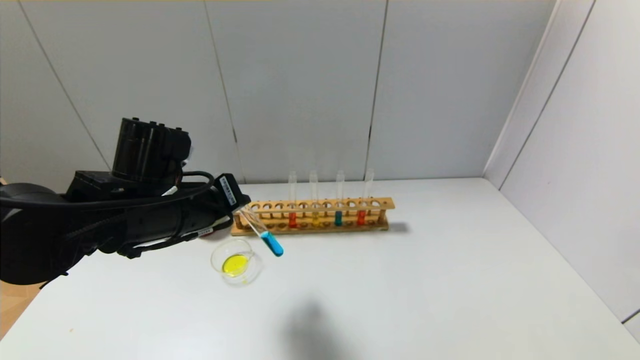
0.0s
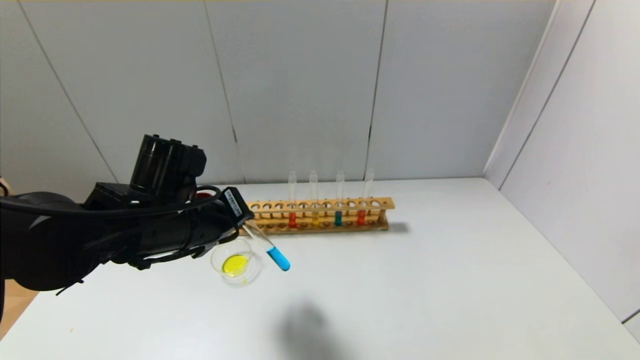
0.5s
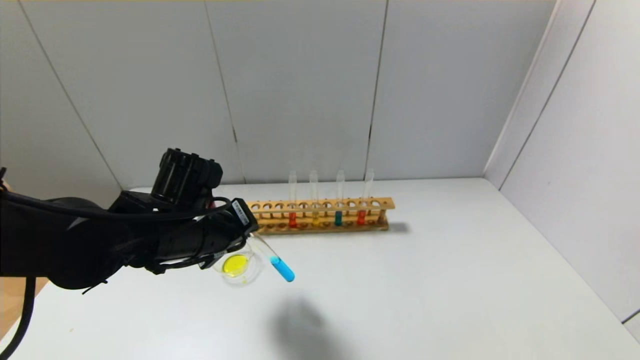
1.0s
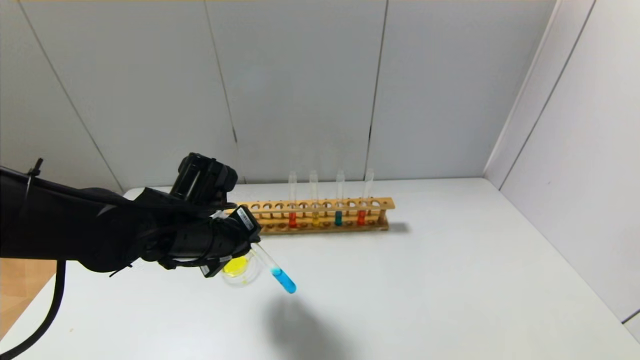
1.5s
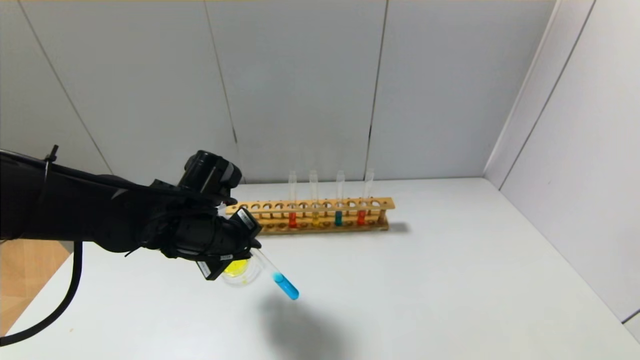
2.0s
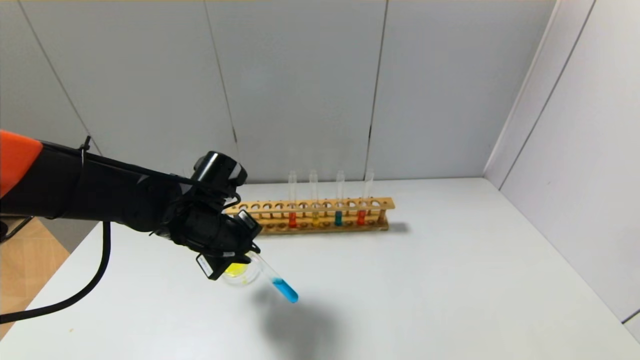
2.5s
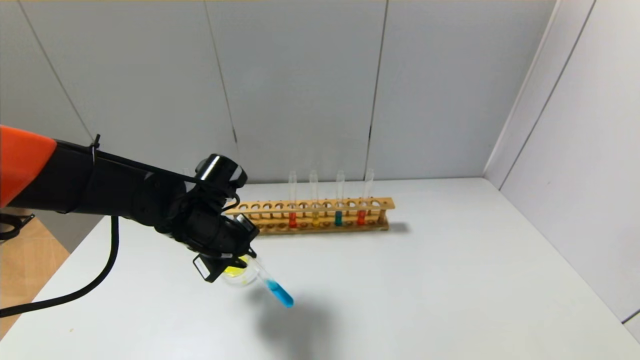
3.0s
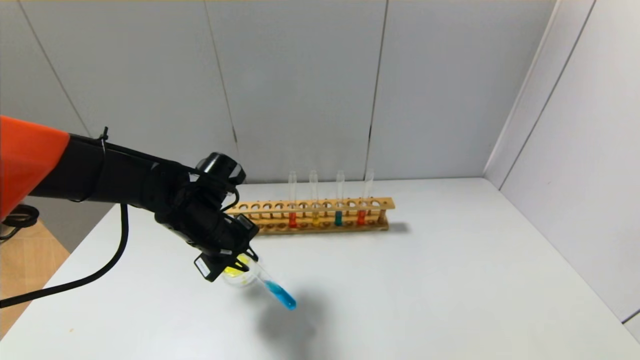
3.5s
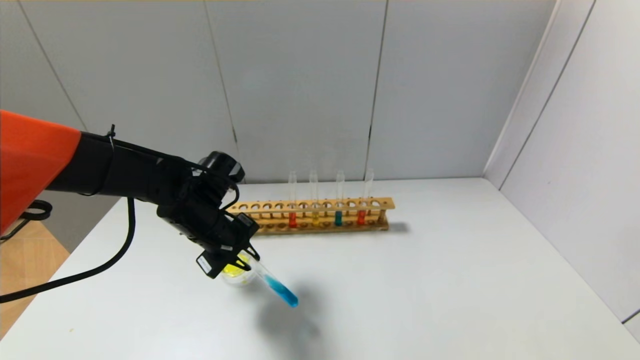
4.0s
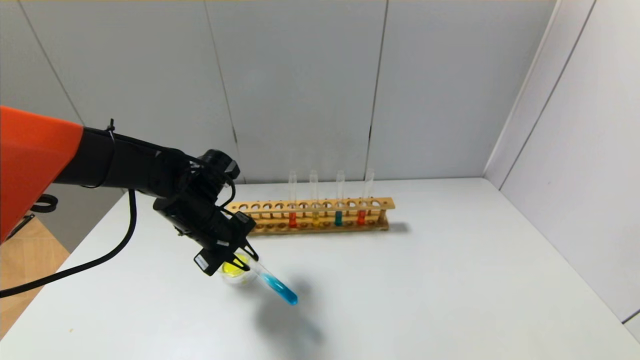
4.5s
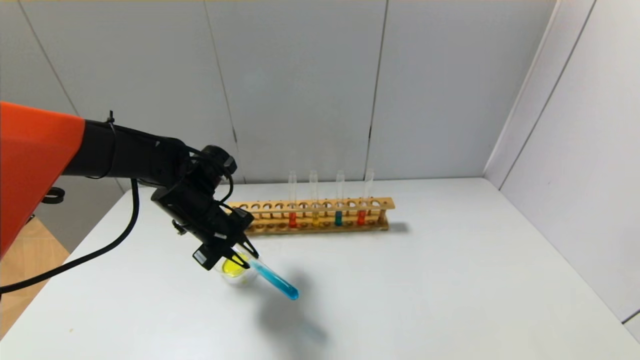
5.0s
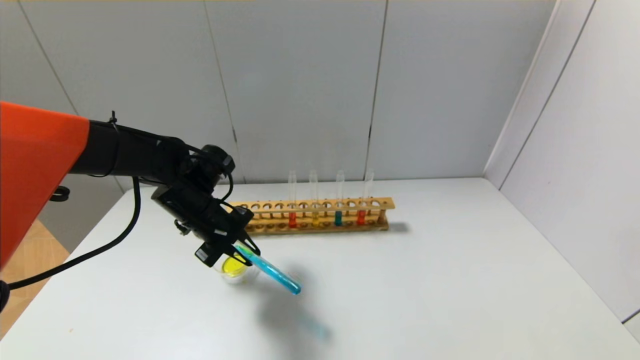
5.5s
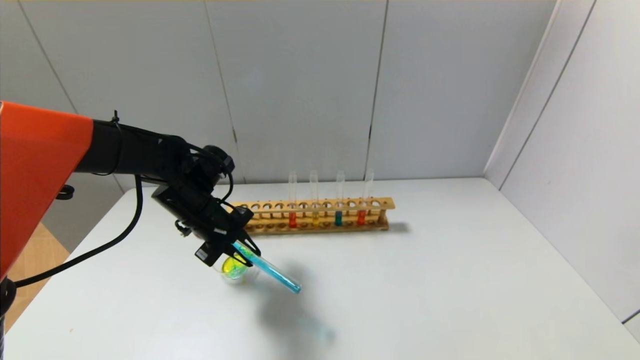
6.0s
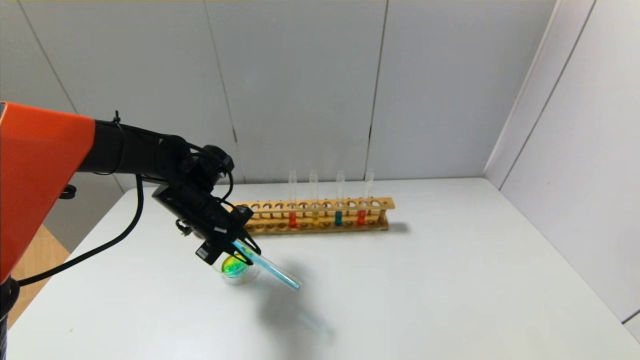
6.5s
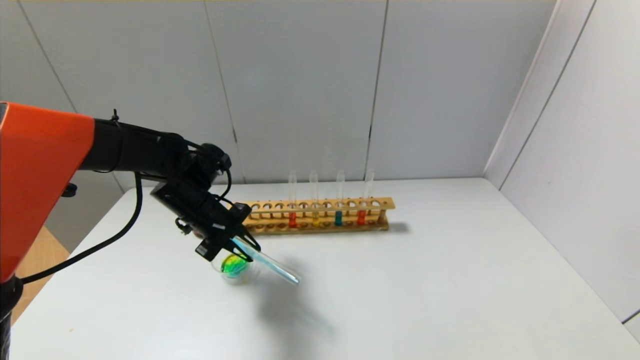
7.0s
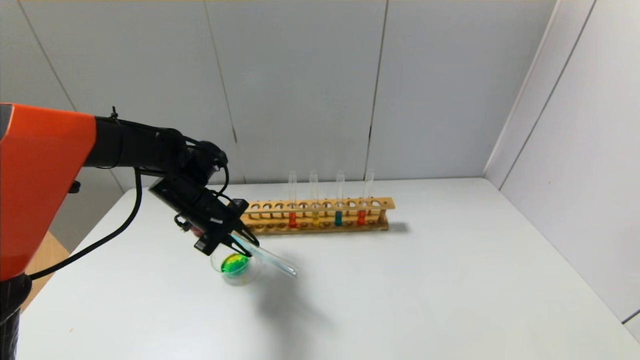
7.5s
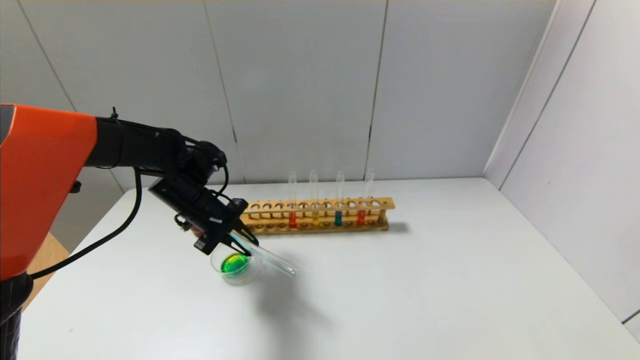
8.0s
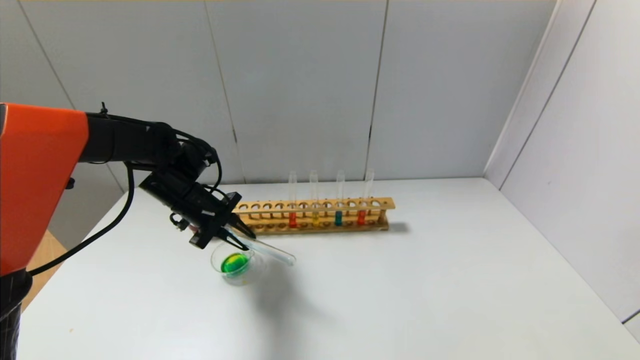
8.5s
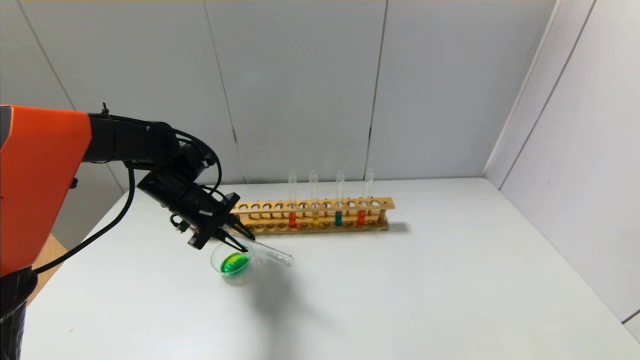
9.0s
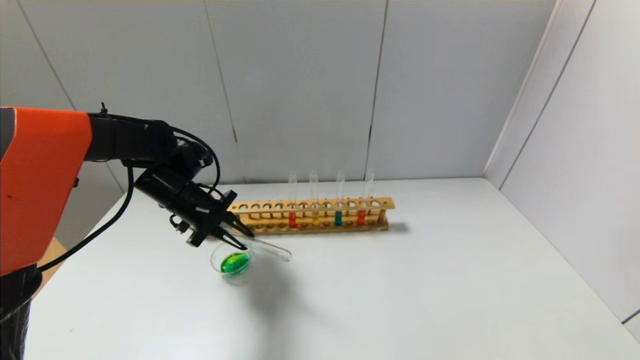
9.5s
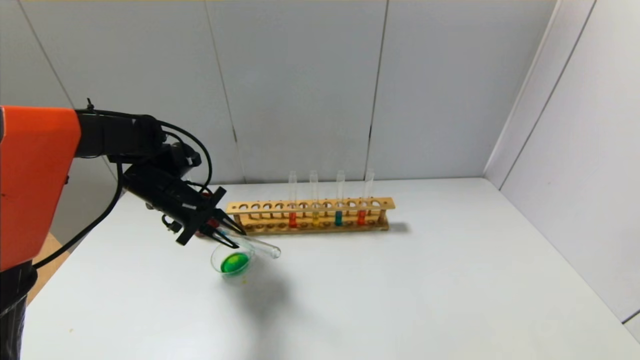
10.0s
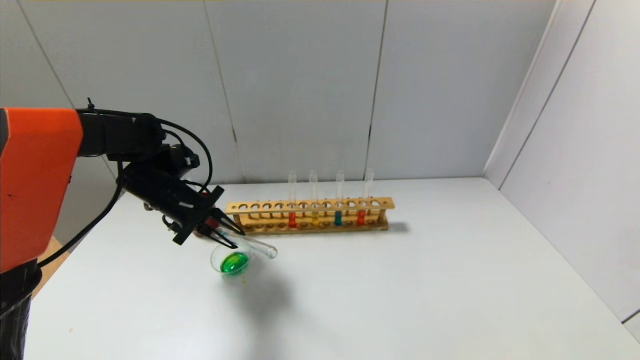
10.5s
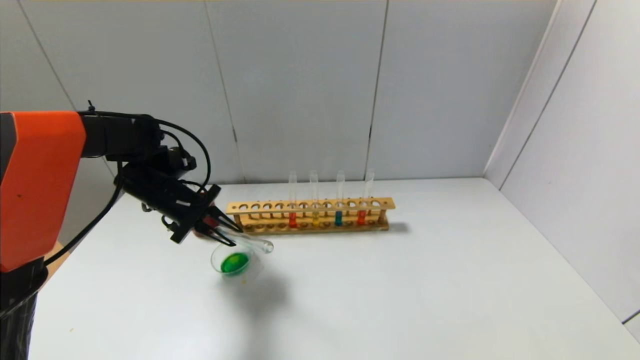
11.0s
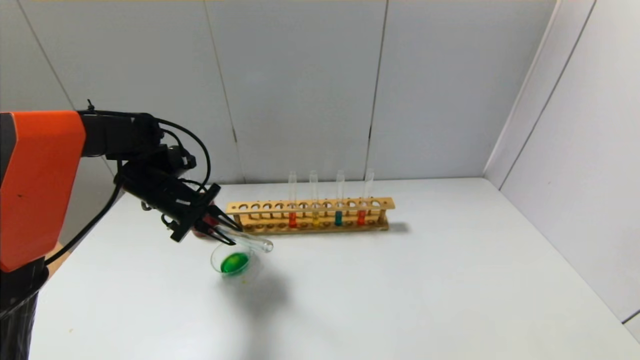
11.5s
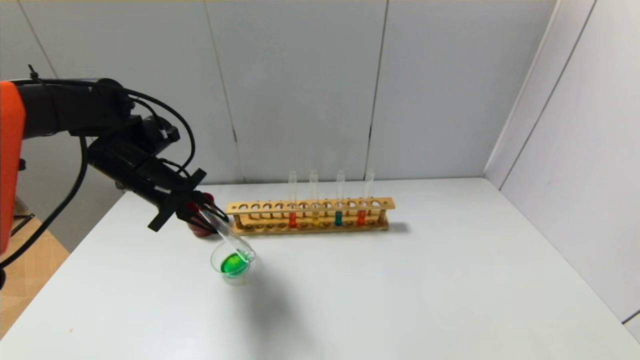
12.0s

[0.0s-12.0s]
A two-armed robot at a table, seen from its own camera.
Step, 0.0s to 11.0s: Pour the blue reagent into the graduated cylinder with the left gripper.
0.0s to 2.0s: The left gripper moves downward, roughly 5 cm.
2.0s to 4.0s: The left gripper shifts by some 5 cm.
4.0s to 8.0s: The grippers stay close to where they were, moving slightly.
8.0s to 10.0s: The grippers move only a little.
10.0s to 12.0s: The left gripper heads upward, covering some 5 cm.

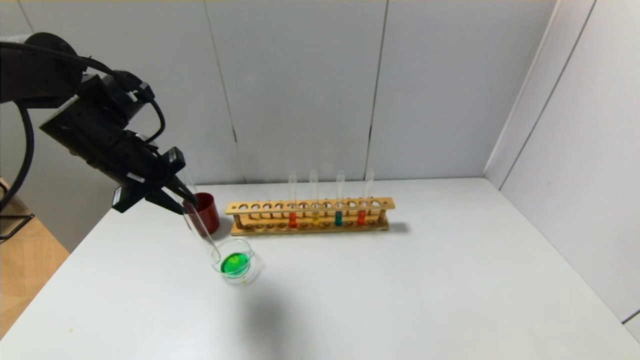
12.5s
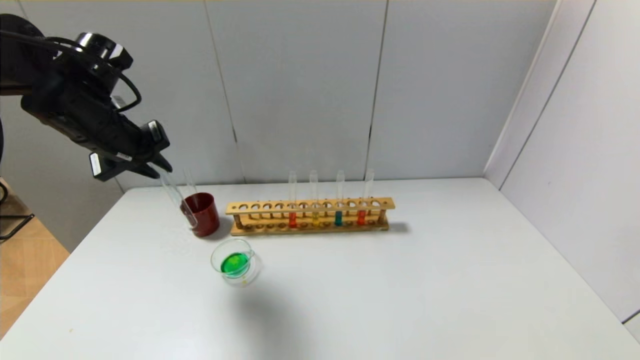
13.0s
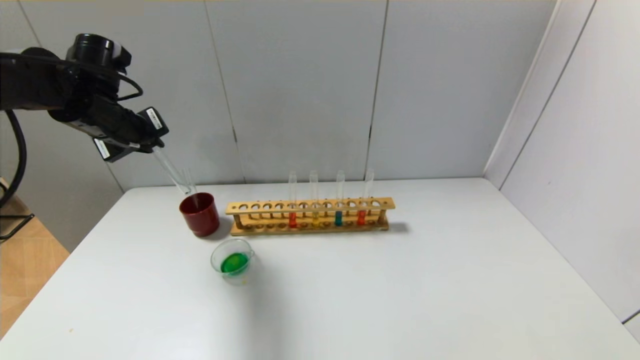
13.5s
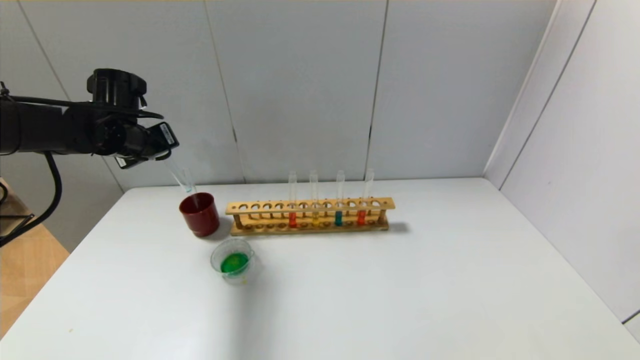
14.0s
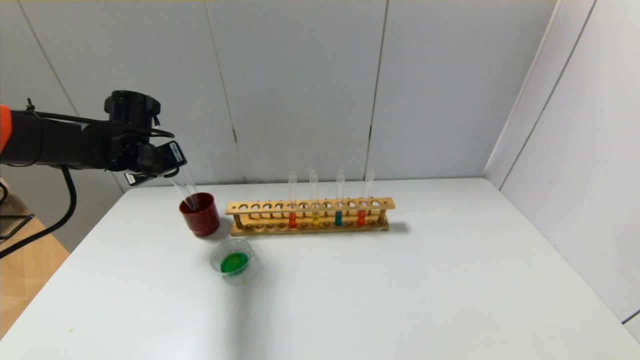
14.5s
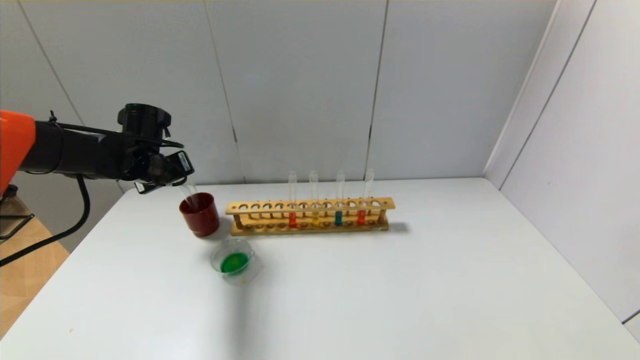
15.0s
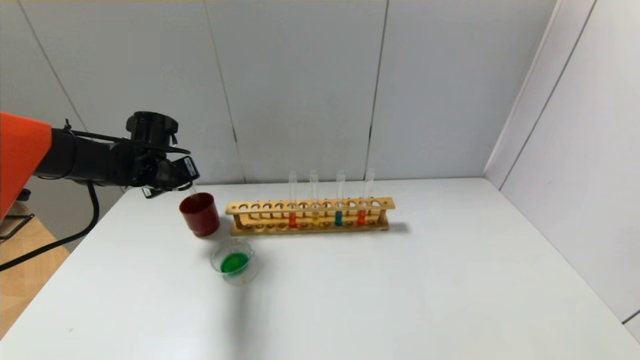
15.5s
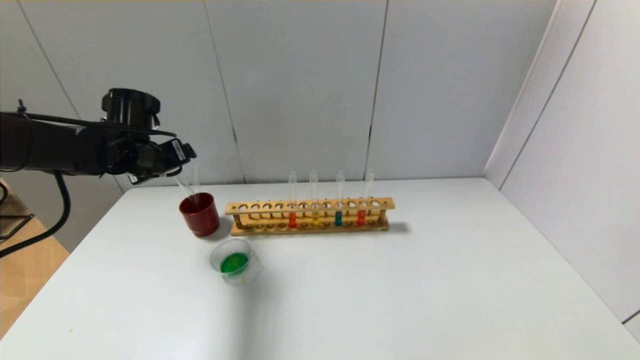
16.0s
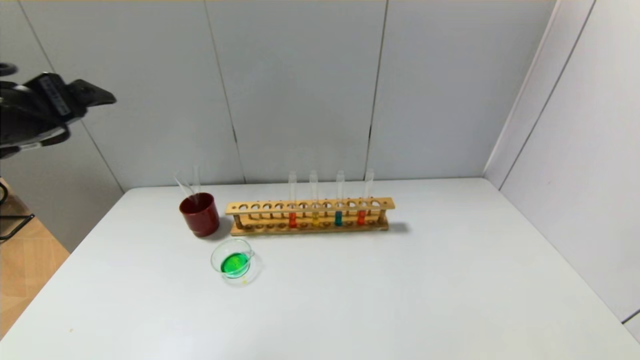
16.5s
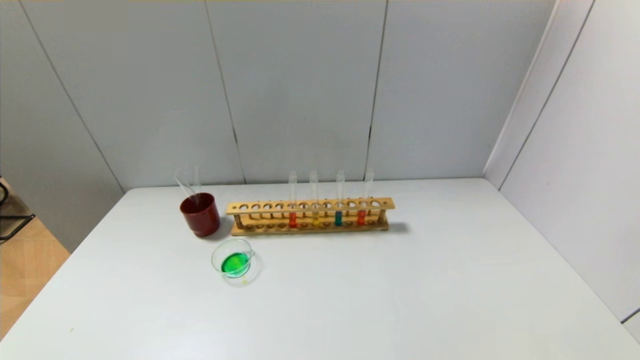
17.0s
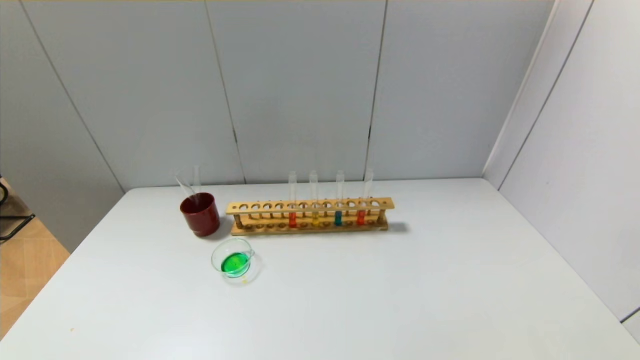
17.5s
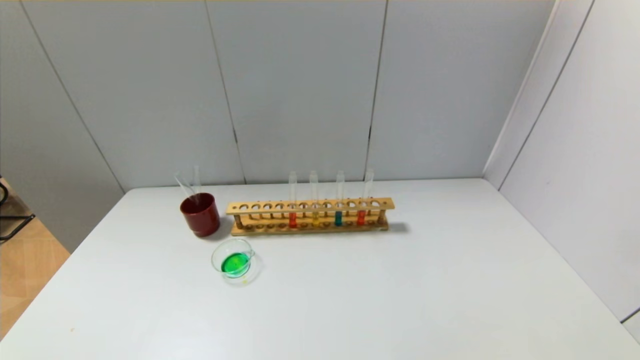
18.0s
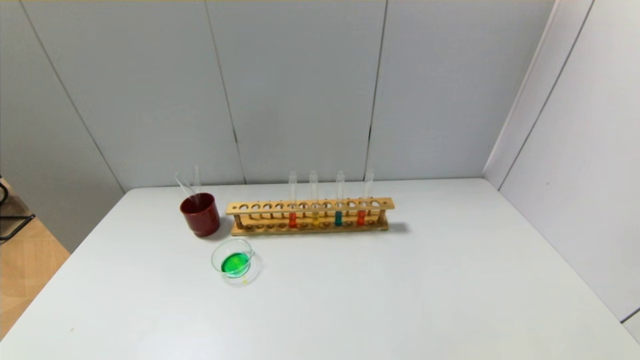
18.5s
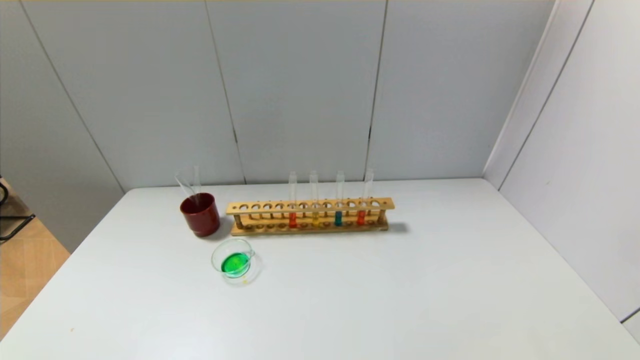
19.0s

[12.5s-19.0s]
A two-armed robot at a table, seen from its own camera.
Step, 12.5s to 15.5s: Place the test tube into the brown cup with the left gripper.
12.5s to 14.5s: The left gripper travels forward and downward by about 10 cm.
14.5s to 17.0s: The left gripper goes roughly 40 cm backward, and opens.

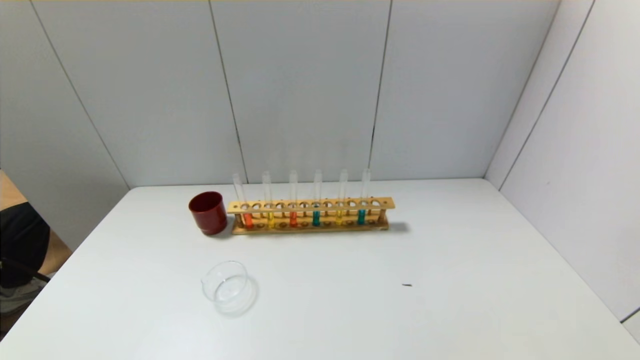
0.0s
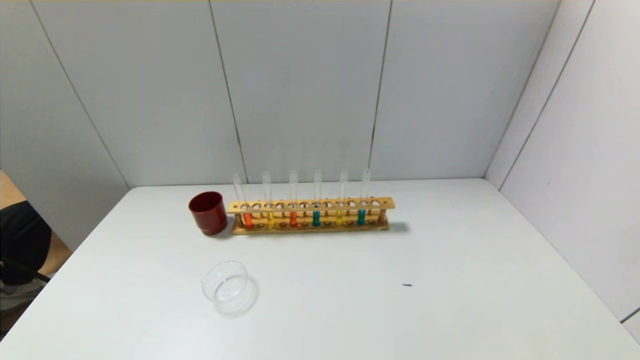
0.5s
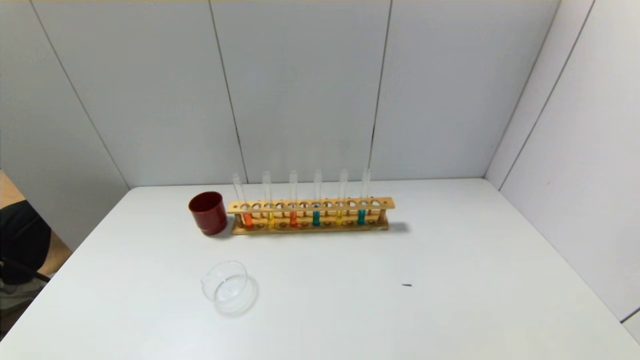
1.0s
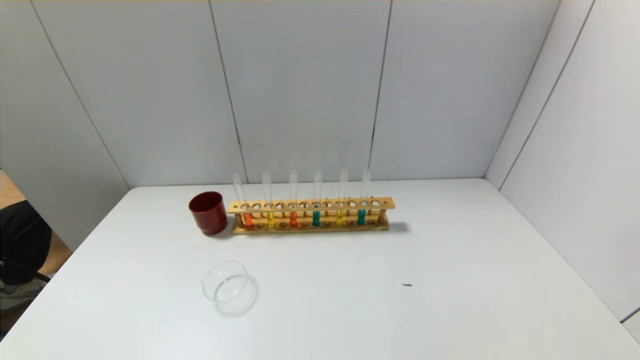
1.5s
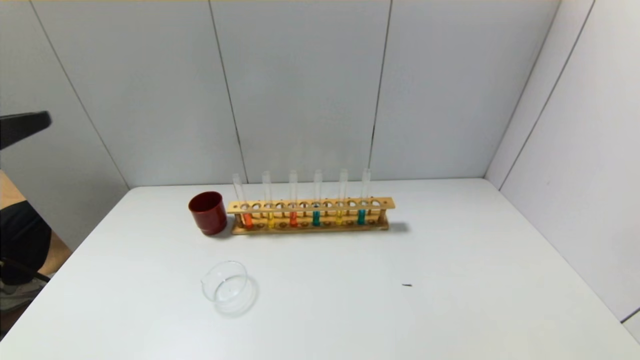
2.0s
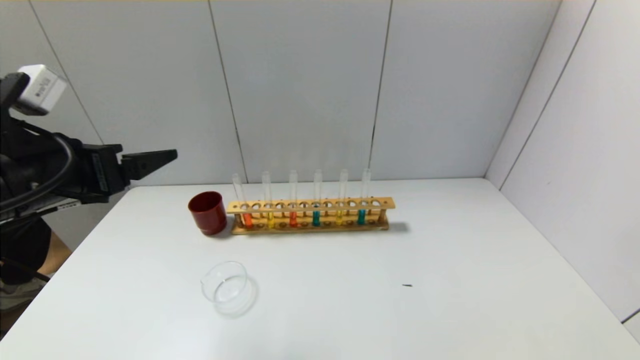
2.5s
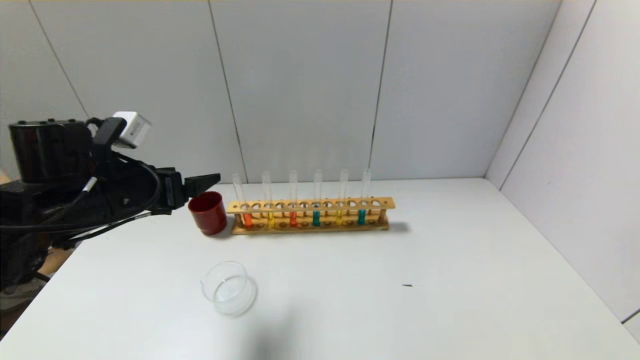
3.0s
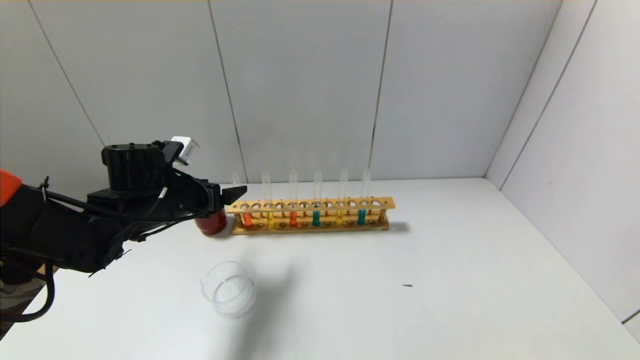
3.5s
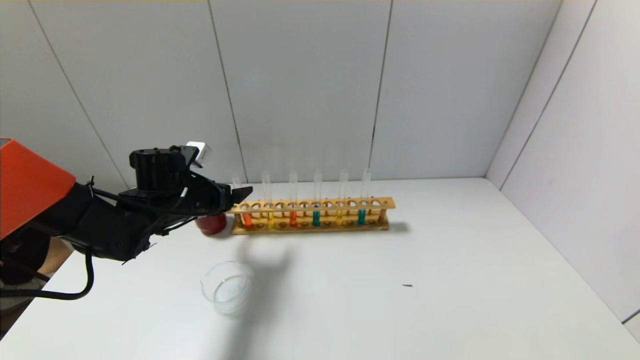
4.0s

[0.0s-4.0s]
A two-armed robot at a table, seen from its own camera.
0.0s to 2.0s: The left gripper travels upward and forward by roughly 30 cm.
2.0s to 4.0s: The left gripper moves forward and downward, about 35 cm.
